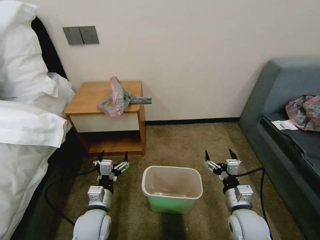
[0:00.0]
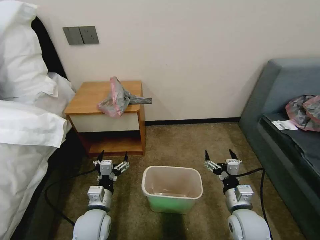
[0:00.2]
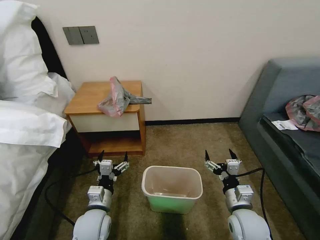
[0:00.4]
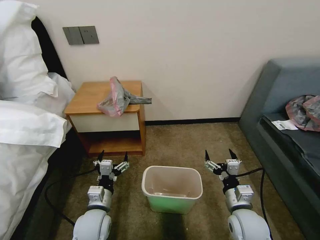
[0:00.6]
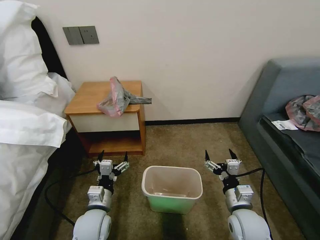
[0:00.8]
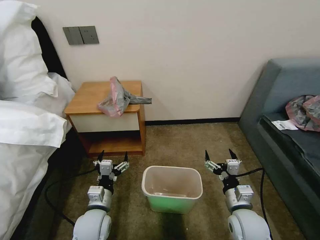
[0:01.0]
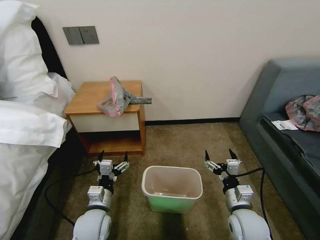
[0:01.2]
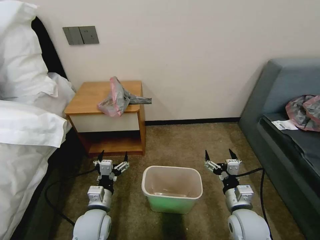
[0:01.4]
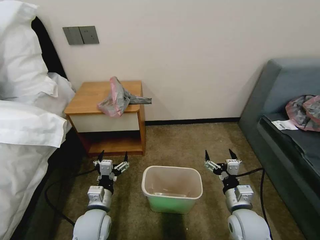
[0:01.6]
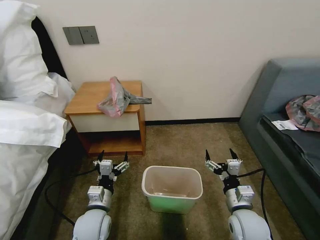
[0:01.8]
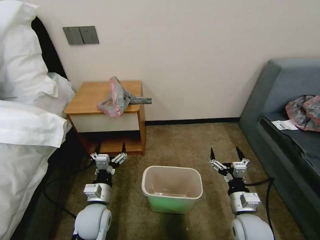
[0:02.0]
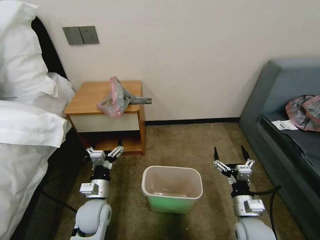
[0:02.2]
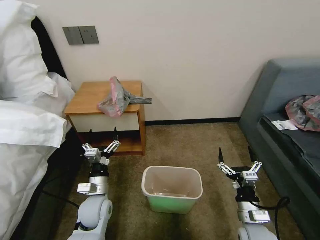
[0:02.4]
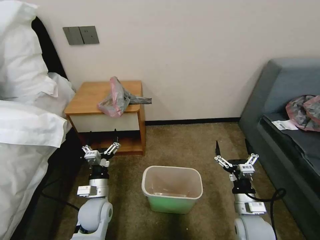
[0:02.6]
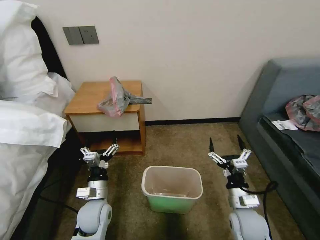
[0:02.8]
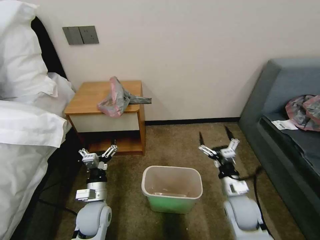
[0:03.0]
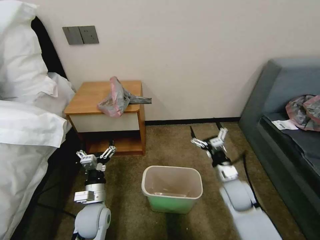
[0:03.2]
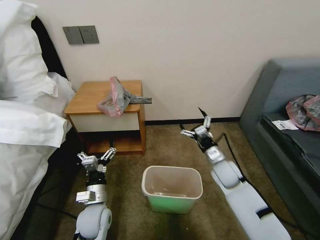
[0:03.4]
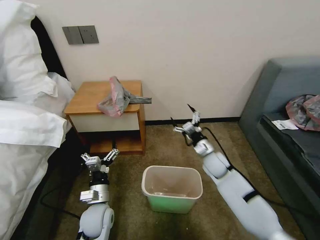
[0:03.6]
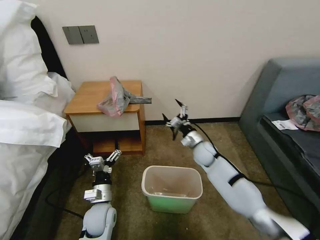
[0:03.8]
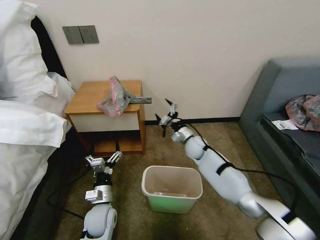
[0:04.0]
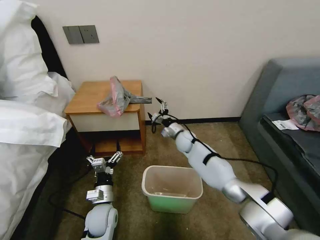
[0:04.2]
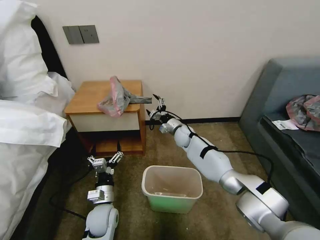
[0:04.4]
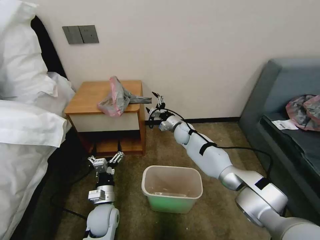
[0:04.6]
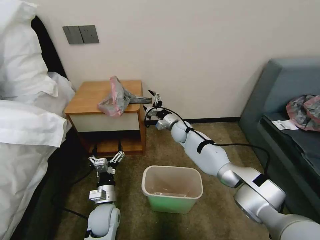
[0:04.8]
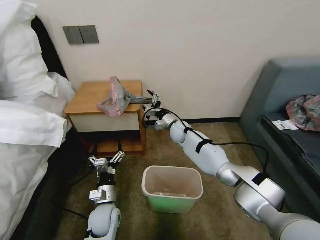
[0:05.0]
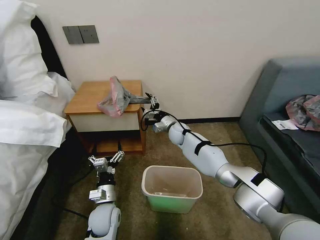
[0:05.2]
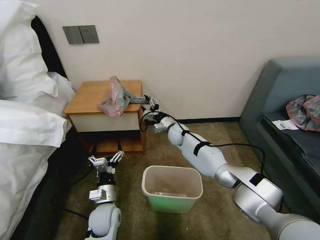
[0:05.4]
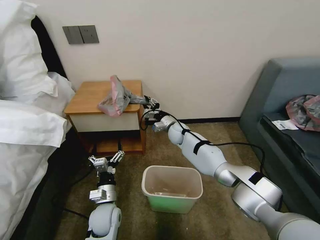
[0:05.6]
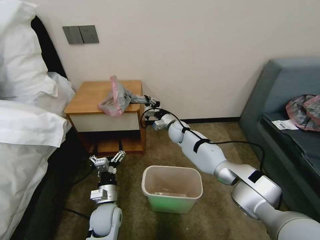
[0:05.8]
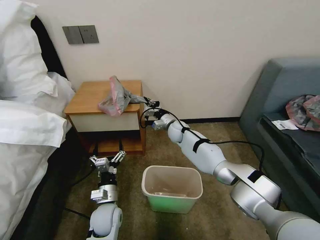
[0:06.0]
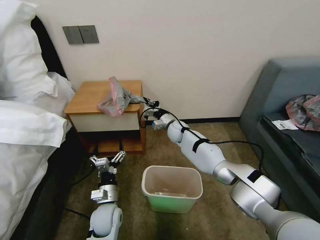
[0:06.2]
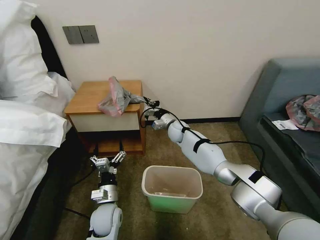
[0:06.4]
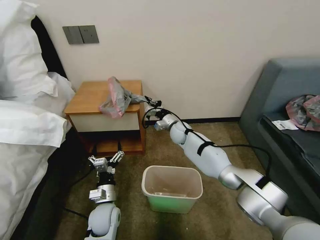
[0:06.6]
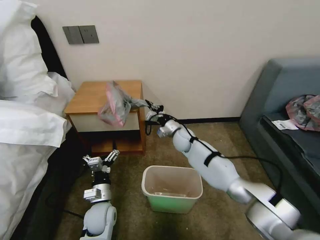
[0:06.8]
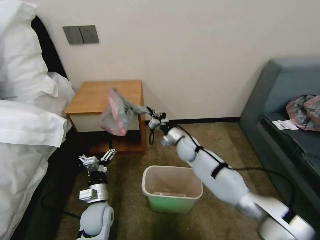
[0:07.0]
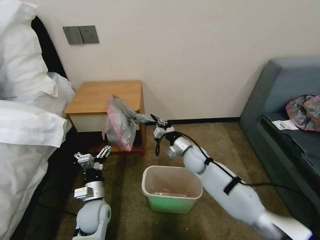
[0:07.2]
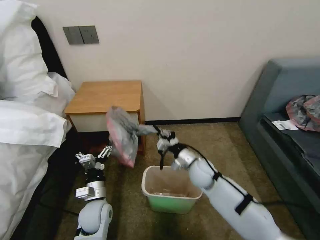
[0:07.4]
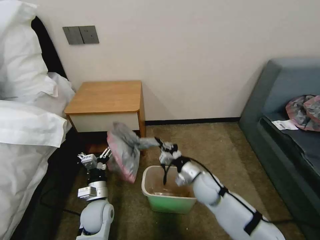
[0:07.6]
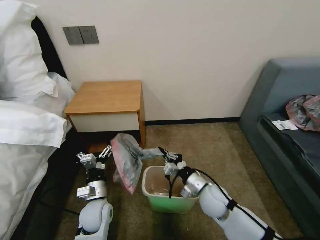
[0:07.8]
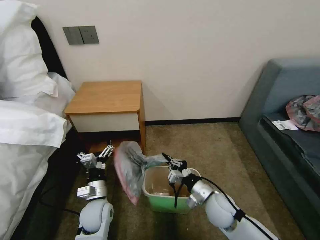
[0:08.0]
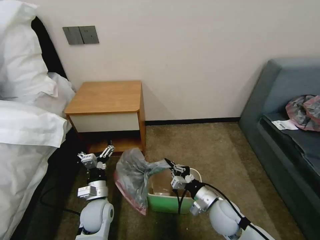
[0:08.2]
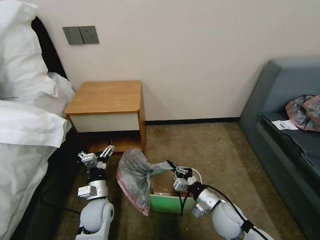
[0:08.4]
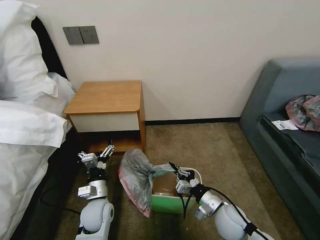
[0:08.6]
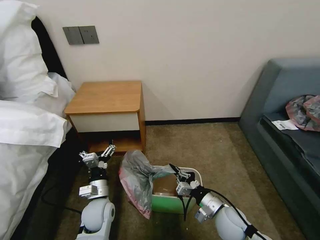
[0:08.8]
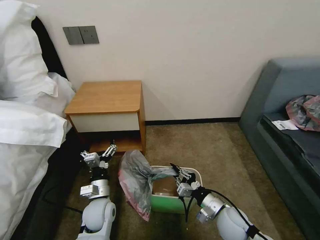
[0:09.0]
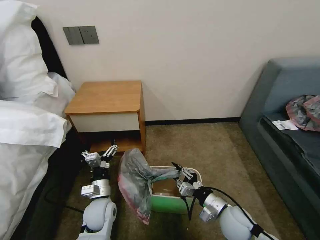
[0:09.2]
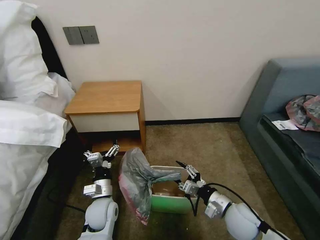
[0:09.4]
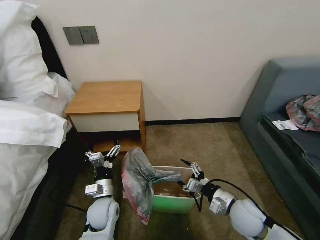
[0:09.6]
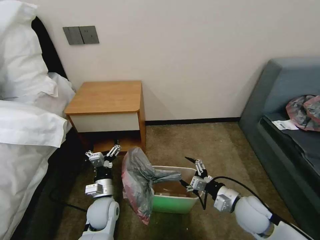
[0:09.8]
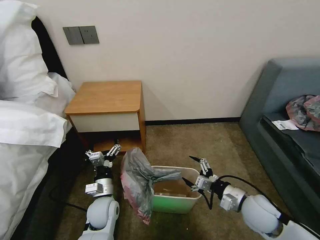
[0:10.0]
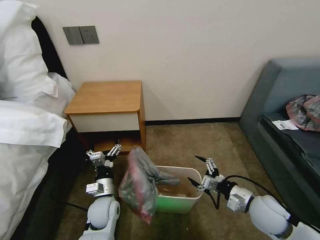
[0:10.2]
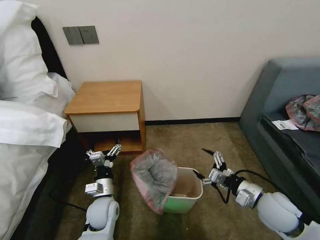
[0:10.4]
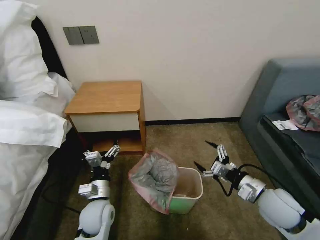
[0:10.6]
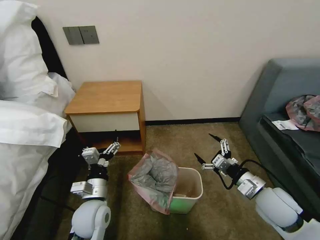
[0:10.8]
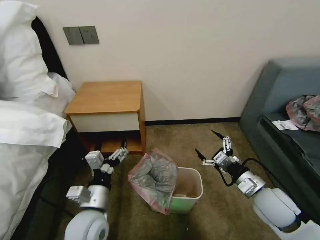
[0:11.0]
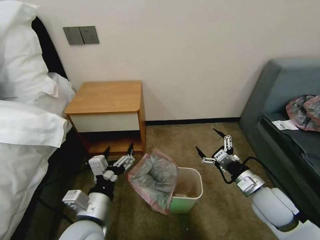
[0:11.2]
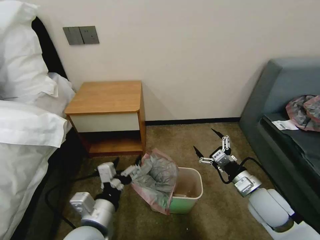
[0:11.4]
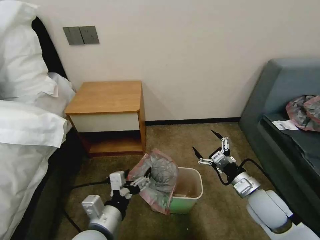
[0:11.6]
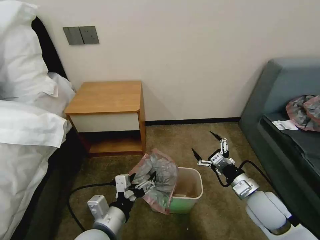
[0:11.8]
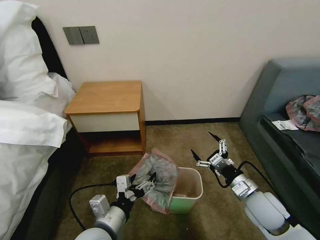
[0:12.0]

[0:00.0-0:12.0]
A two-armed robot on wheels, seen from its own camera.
Task of the whole recording: Pick up the garbage bag from the table and place it over the trash can.
0:03.0 to 0:04.4: The right gripper travels forward and to the left by approximately 35 cm.
0:04.4 to 0:06.0: The right gripper closes.
0:06.0 to 0:07.6: The right gripper shifts some 25 cm backward.
0:07.6 to 0:09.0: The right gripper heads backward and to the right, covering some 15 cm.
0:09.0 to 0:10.4: The right gripper goes about 15 cm to the right and upward, and opens.
0:10.4 to 0:12.0: The left gripper shifts about 15 cm backward and upward.

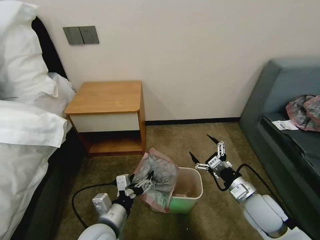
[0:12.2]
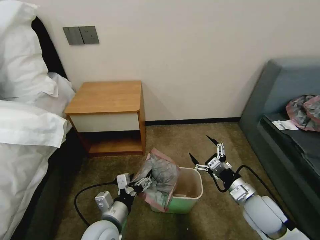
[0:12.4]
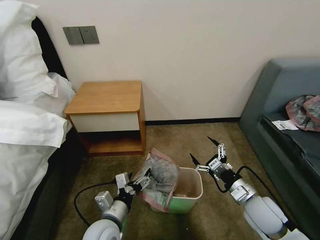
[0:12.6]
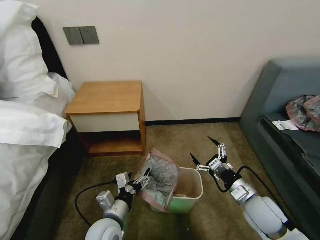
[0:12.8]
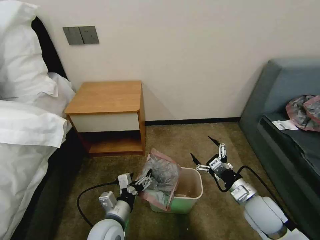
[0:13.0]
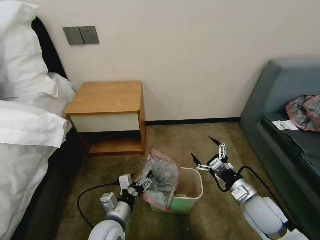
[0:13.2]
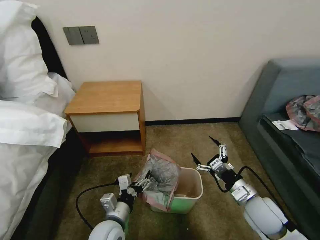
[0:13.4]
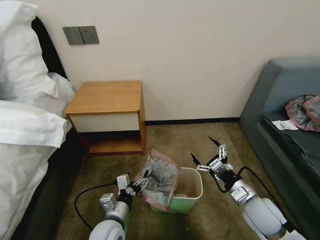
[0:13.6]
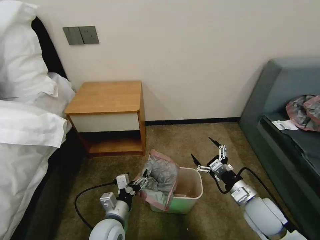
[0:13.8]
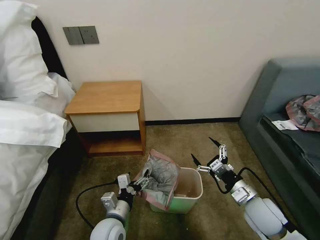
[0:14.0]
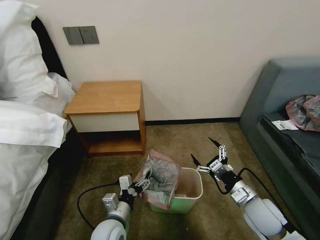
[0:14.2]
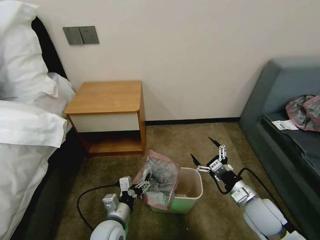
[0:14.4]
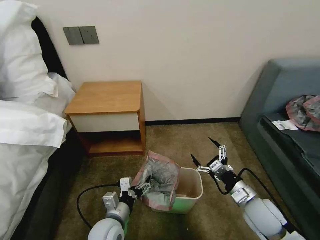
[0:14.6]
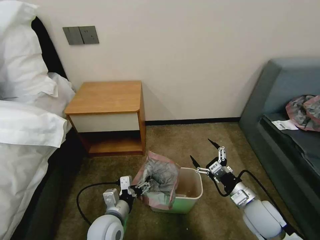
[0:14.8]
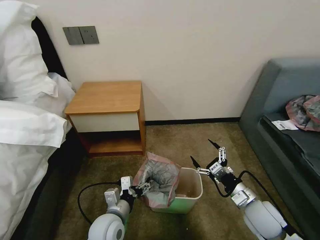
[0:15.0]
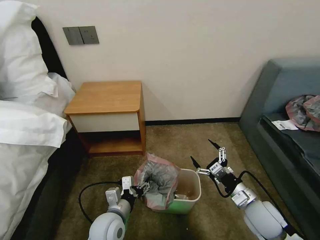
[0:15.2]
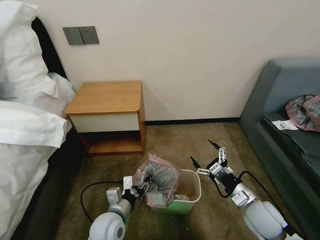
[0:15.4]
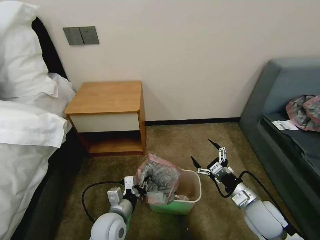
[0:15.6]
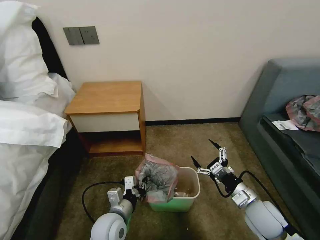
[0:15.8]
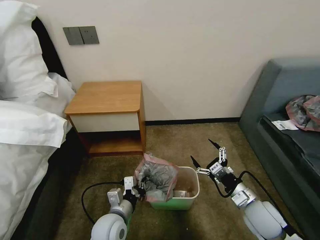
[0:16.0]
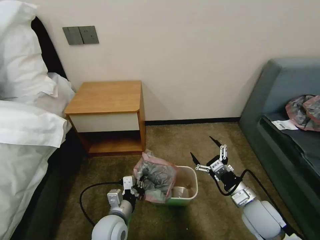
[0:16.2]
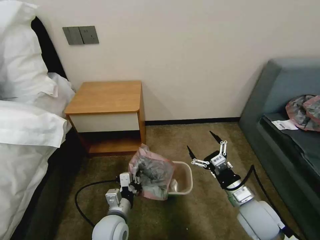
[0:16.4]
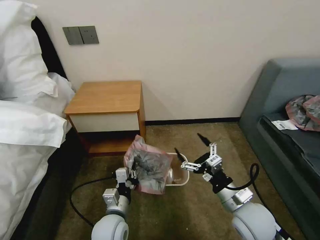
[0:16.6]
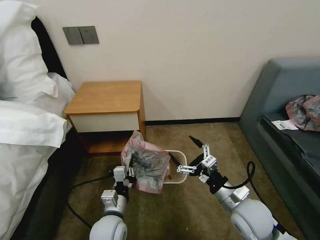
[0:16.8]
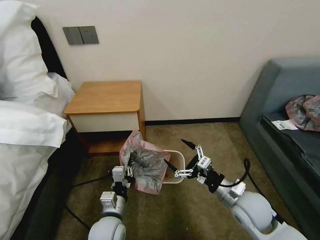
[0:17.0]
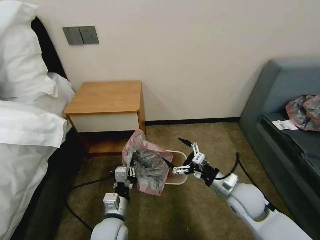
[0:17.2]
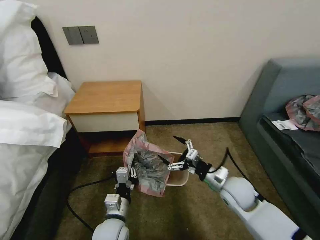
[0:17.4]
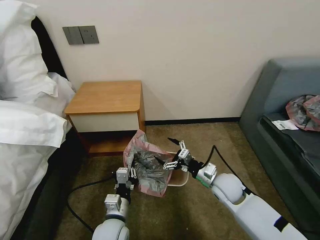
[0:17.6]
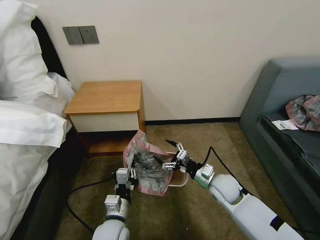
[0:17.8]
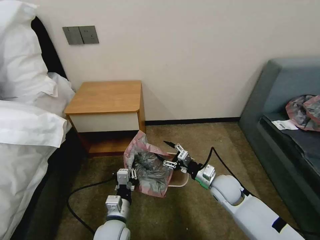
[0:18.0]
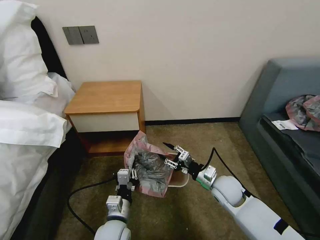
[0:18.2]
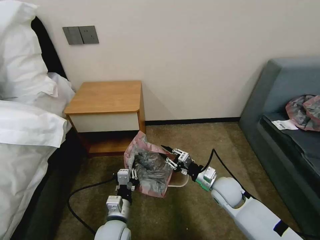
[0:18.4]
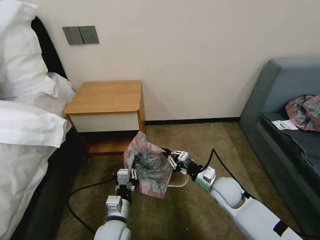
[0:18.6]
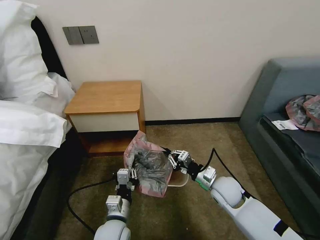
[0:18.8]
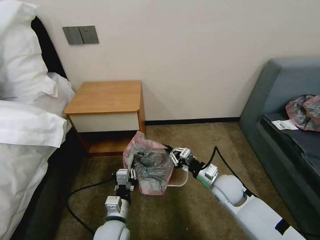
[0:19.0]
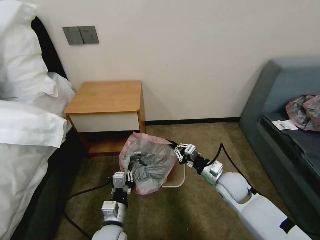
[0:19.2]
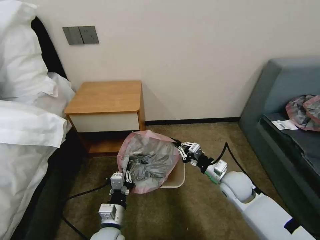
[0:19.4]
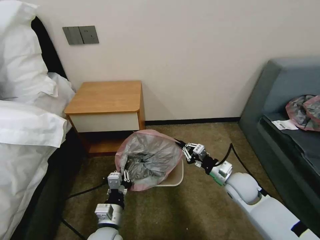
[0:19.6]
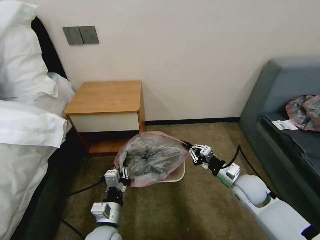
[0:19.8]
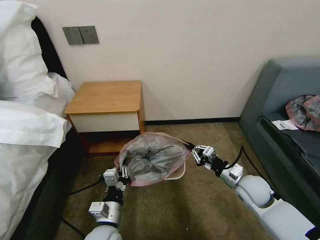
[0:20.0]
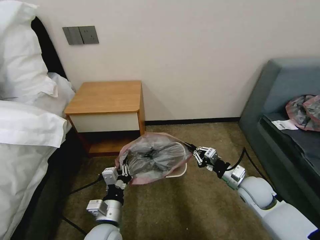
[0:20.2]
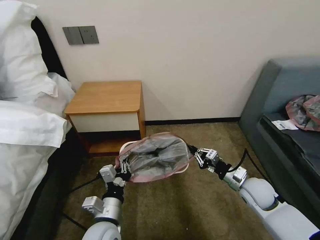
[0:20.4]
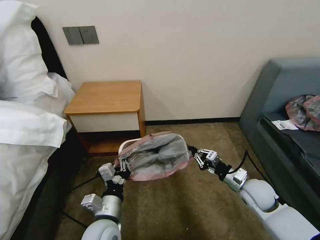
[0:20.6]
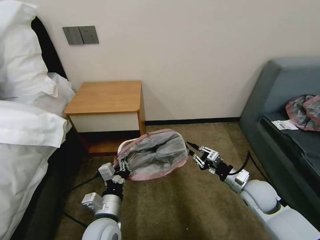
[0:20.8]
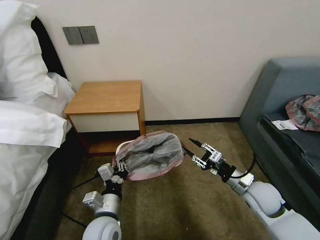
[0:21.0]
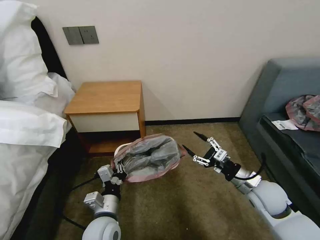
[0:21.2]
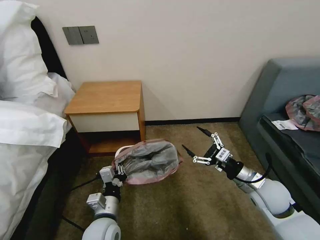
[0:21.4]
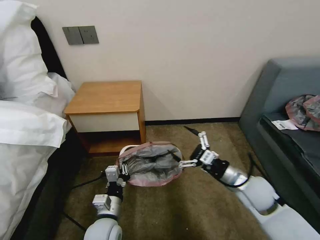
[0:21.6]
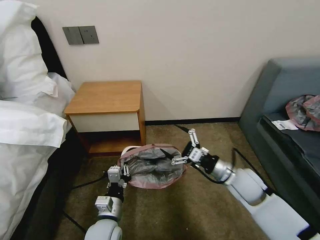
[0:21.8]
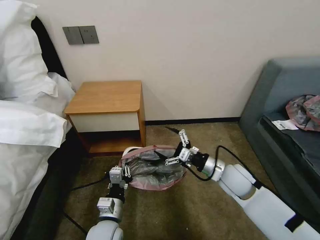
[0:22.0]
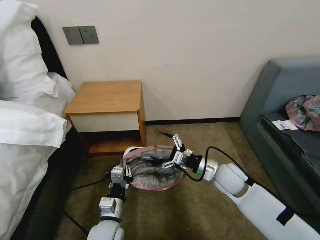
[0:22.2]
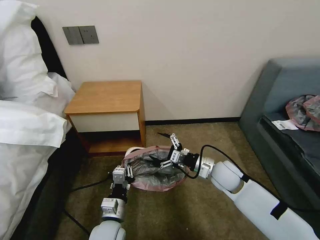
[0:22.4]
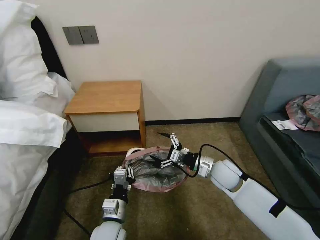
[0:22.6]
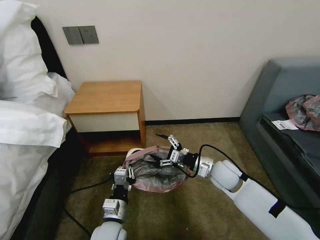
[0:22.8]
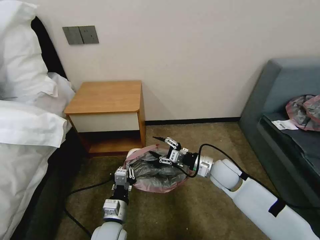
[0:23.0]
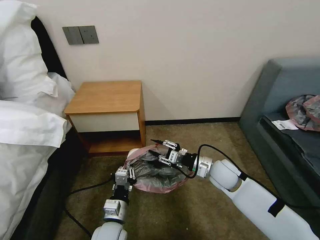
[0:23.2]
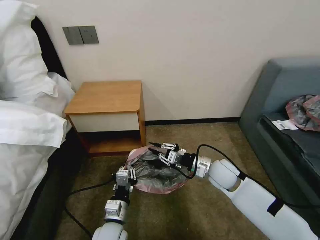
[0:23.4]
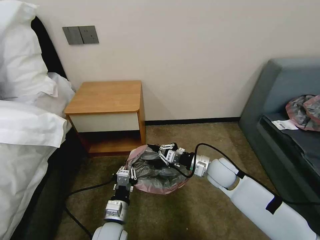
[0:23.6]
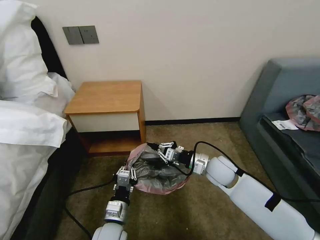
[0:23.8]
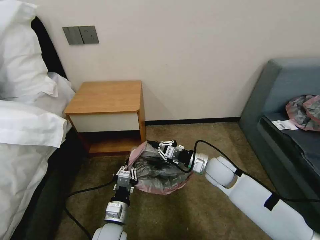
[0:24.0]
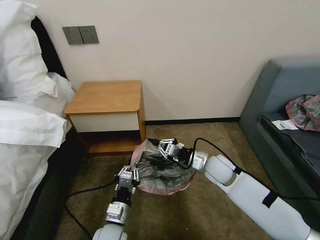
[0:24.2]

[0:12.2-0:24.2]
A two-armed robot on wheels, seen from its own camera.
Task of the whole recording: Pick up the garbage bag from the table and place it over the trash can.
0:12.2 to 0:13.8: The left gripper travels downward by approximately 5 cm.
0:13.8 to 0:15.2: The grippers stay close to where they were, moving slightly.
0:15.2 to 0:16.6: The left gripper closes up. The right gripper travels to the left by about 5 cm.
0:16.6 to 0:18.2: The right gripper shifts some 15 cm forward and downward, and closes up.
0:18.2 to 0:19.8: The right gripper heads to the right, covering some 5 cm, and closes its fingers.
0:19.8 to 0:21.2: The right gripper shifts by roughly 5 cm, and opens.
0:21.2 to 0:22.6: The right gripper heads to the left and forward, covering some 15 cm.
0:22.6 to 0:24.2: The right gripper closes its fingers.
